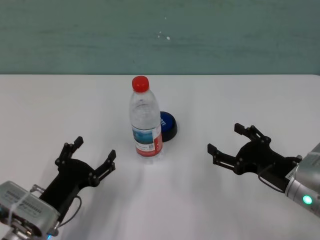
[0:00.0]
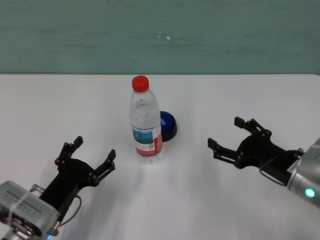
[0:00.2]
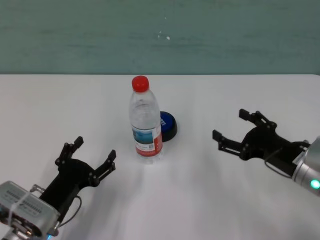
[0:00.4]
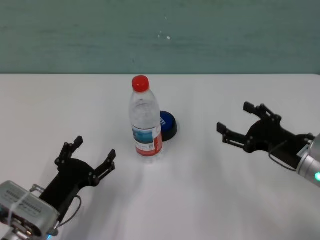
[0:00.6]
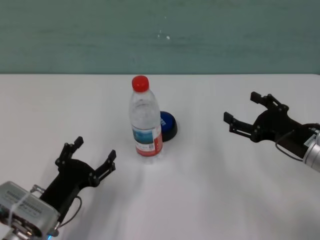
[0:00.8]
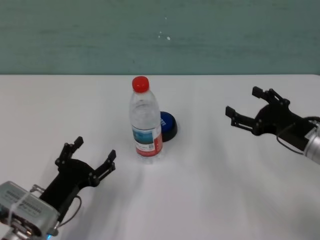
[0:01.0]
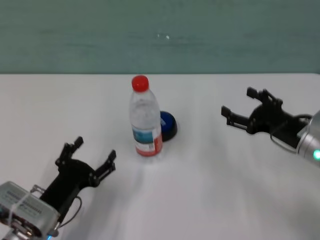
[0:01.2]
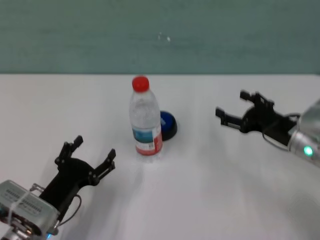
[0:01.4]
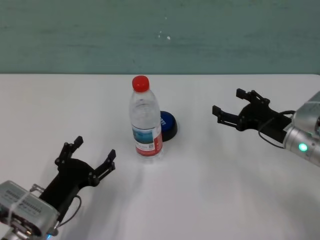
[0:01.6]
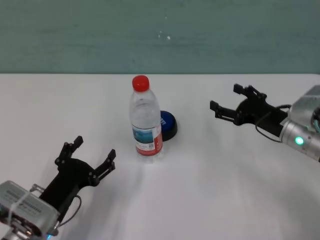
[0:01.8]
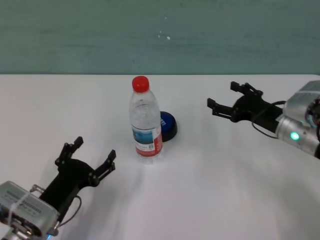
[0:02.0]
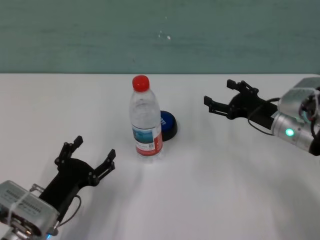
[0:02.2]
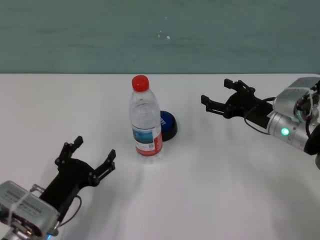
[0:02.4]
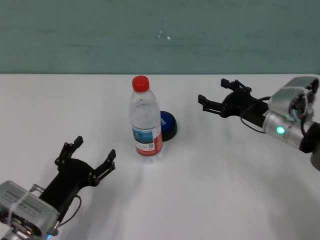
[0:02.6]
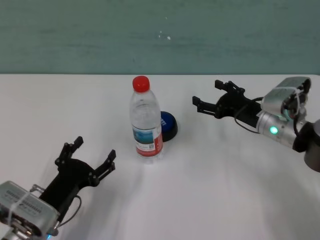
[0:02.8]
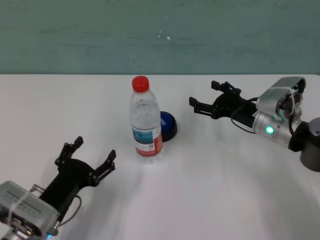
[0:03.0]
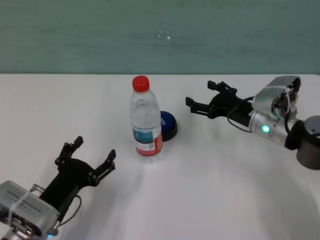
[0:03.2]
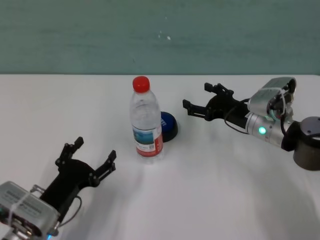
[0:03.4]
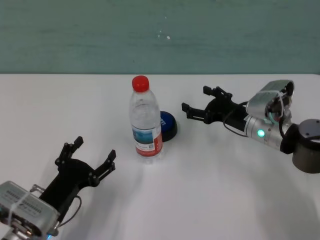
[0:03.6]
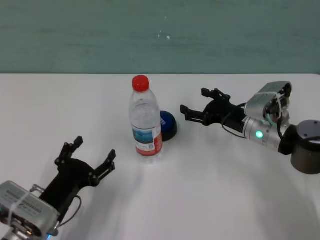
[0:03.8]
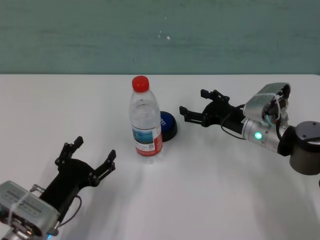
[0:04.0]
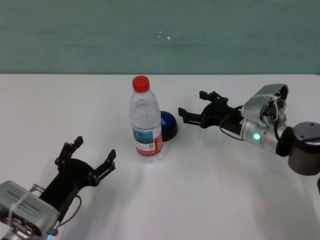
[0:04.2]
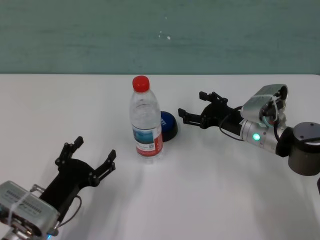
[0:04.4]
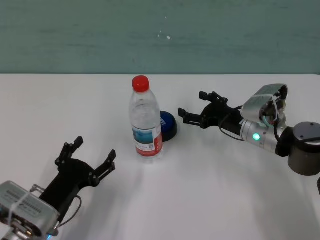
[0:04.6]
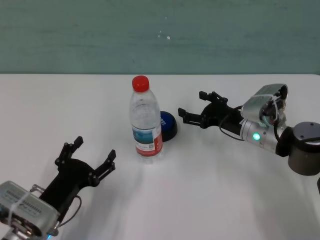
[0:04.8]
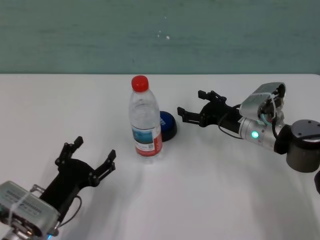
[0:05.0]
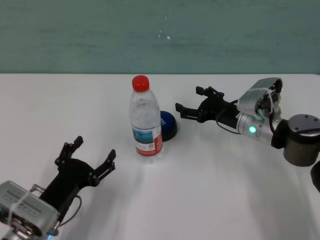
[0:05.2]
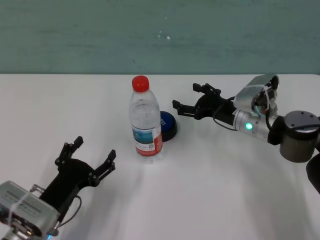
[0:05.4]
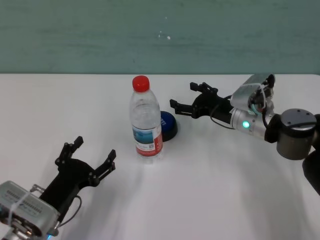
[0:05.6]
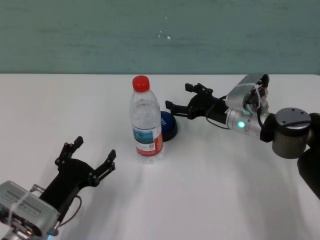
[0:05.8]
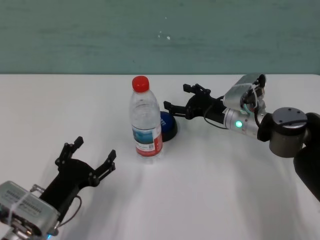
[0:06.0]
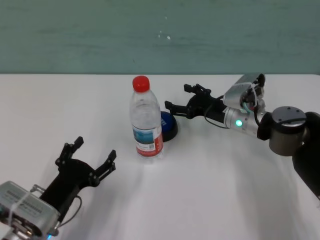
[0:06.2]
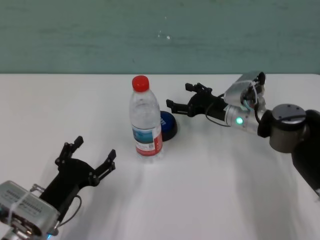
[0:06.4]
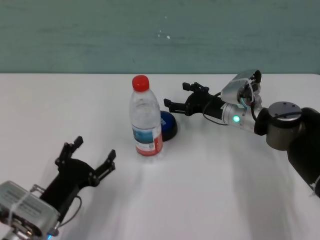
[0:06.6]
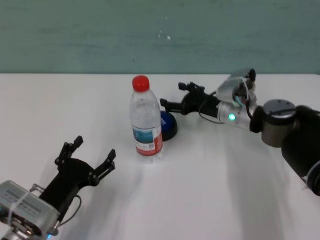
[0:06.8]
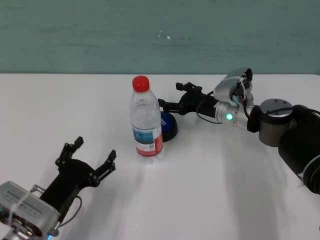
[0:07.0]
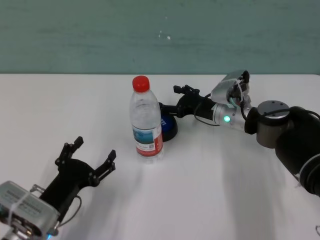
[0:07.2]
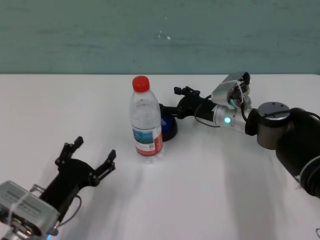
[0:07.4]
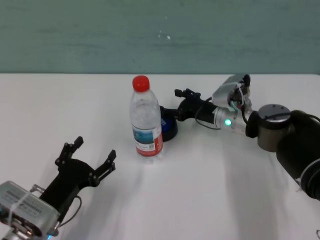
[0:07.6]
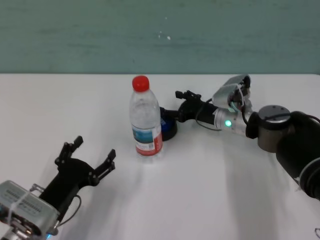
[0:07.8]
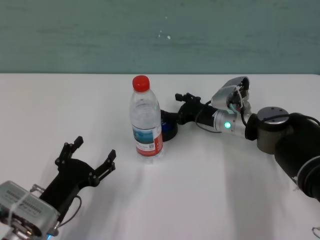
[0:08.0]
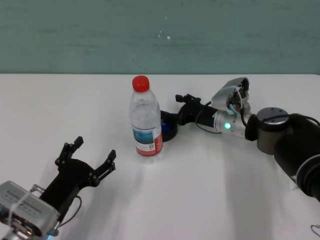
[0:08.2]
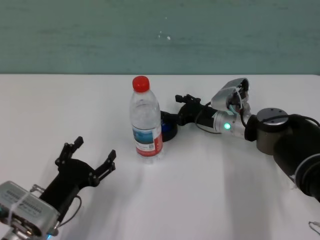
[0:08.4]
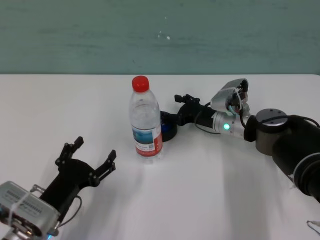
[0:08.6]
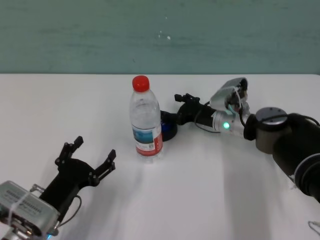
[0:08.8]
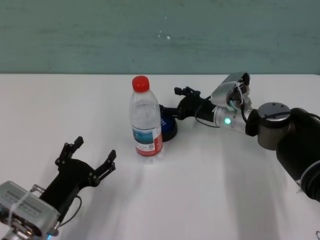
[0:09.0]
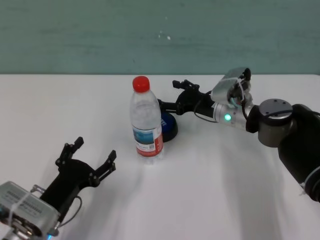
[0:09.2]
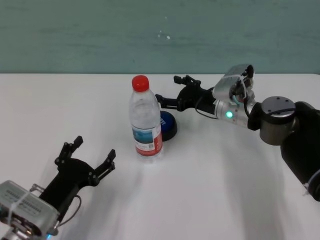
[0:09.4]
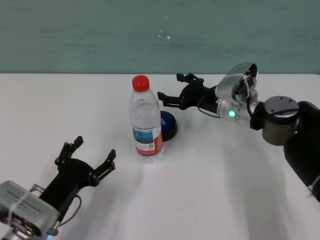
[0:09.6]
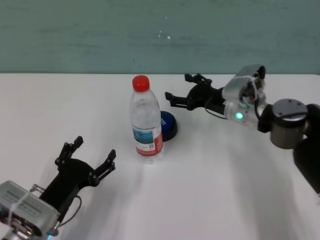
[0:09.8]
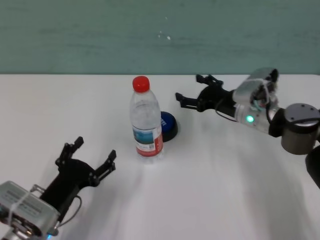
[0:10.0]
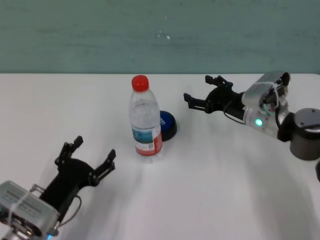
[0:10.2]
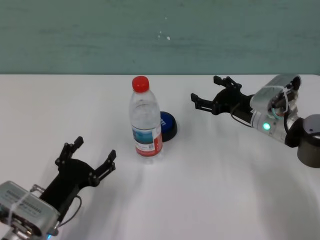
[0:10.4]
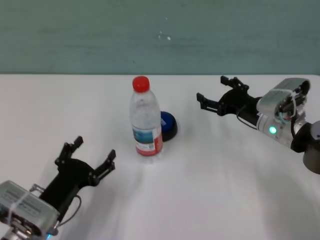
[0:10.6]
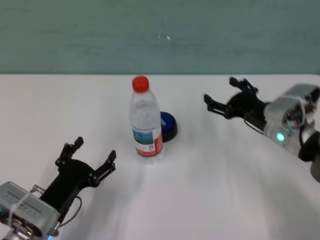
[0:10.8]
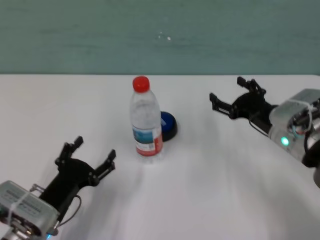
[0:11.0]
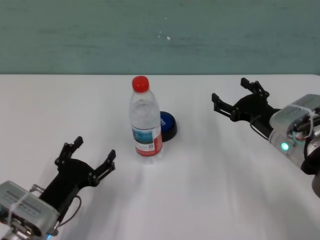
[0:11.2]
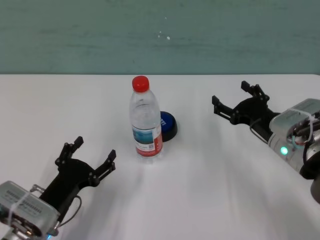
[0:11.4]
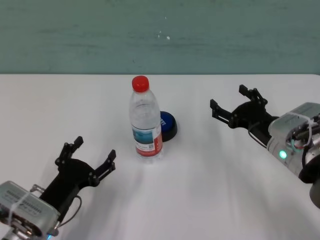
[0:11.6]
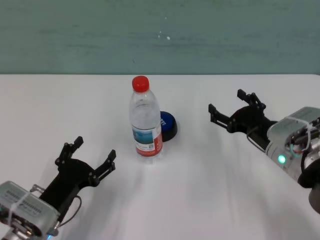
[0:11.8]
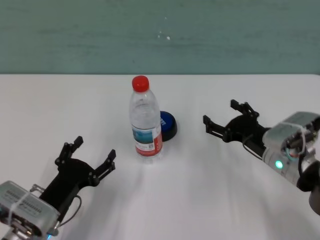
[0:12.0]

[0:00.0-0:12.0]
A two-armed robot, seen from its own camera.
Task of the whole recording: after avoiding the water bottle on the table, press the button.
Step, 0:00.0 to 0:08.8: Press the button blocked by the bottle with right gripper.
